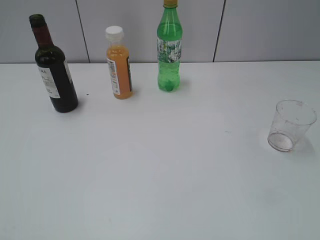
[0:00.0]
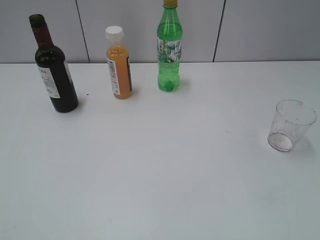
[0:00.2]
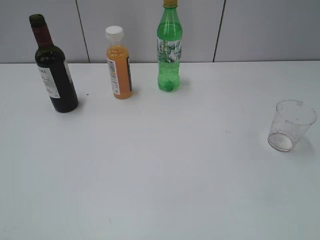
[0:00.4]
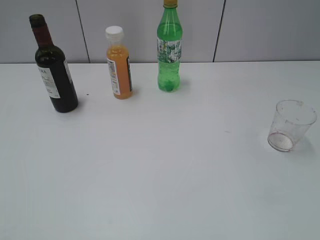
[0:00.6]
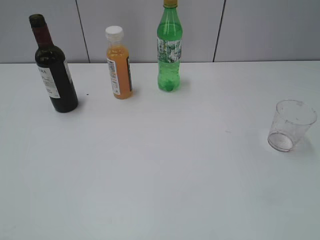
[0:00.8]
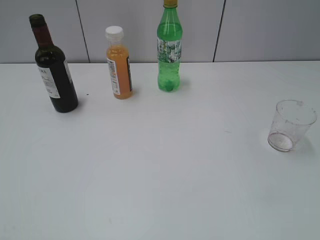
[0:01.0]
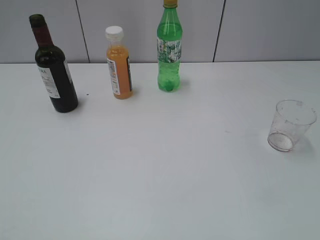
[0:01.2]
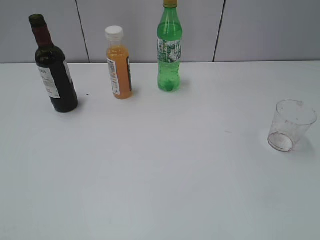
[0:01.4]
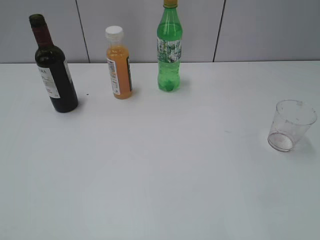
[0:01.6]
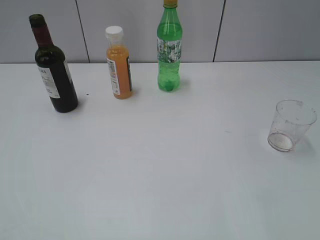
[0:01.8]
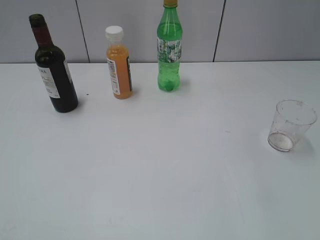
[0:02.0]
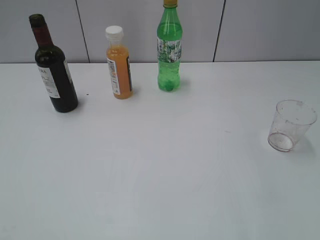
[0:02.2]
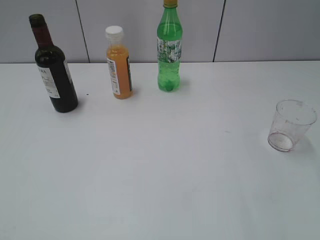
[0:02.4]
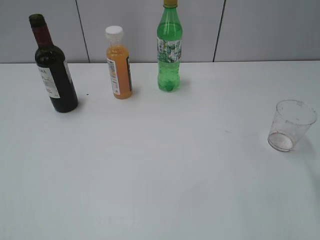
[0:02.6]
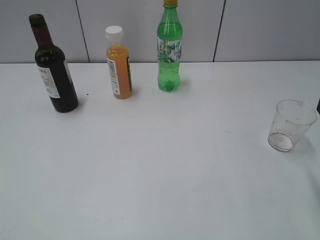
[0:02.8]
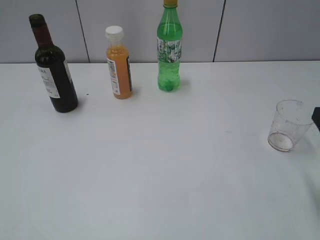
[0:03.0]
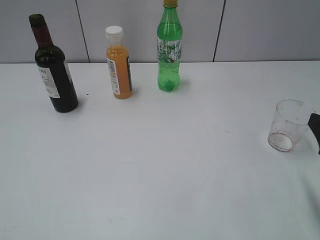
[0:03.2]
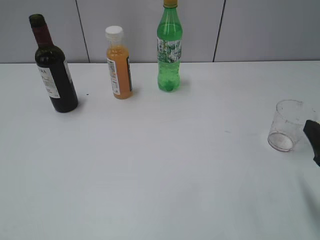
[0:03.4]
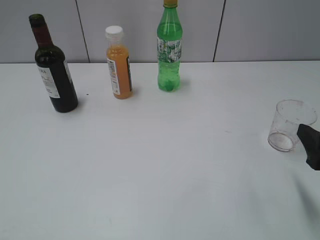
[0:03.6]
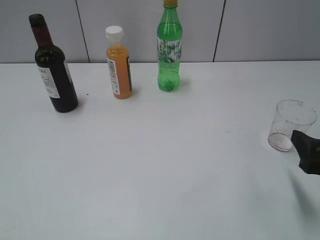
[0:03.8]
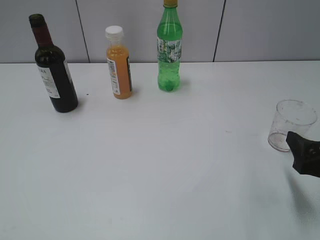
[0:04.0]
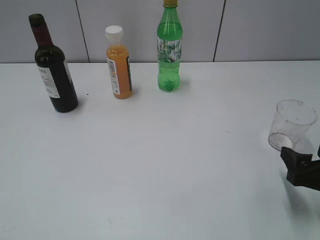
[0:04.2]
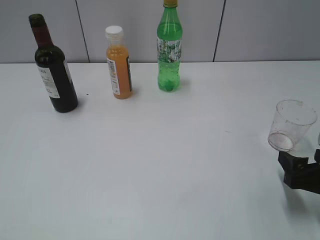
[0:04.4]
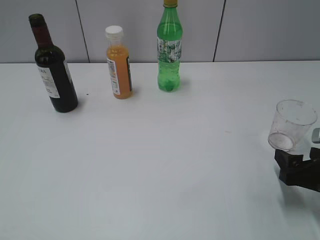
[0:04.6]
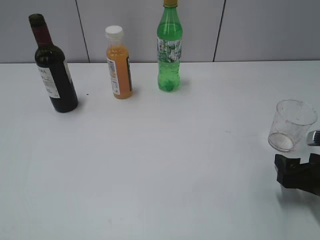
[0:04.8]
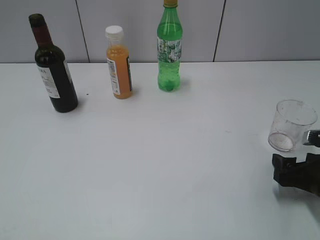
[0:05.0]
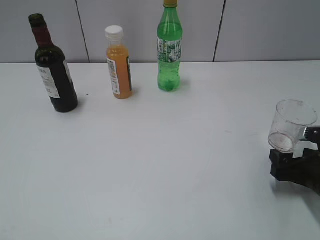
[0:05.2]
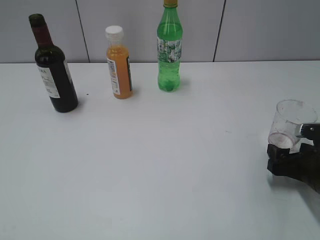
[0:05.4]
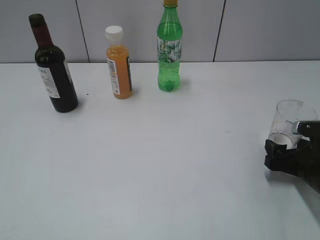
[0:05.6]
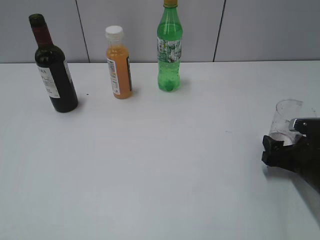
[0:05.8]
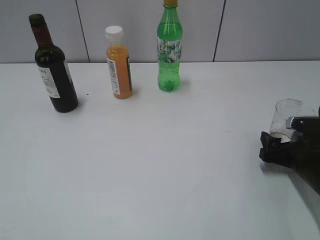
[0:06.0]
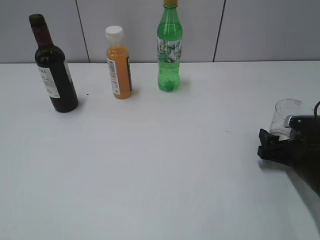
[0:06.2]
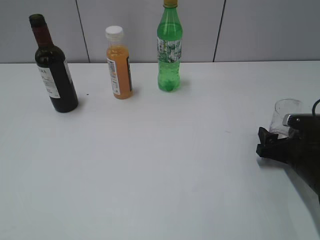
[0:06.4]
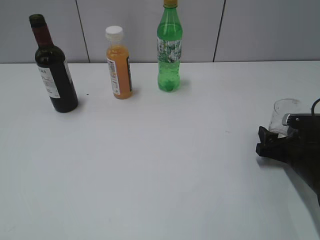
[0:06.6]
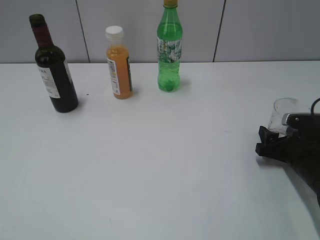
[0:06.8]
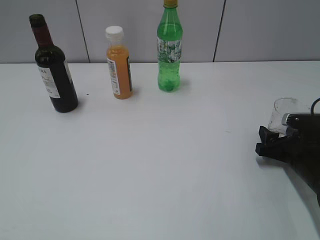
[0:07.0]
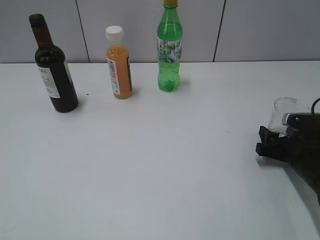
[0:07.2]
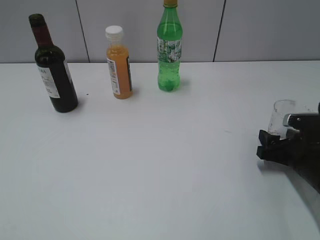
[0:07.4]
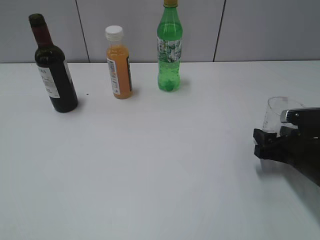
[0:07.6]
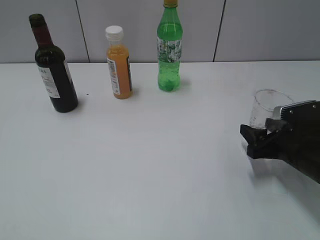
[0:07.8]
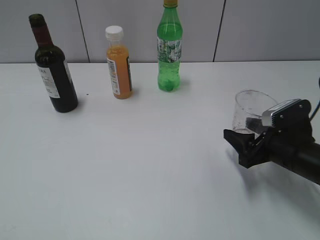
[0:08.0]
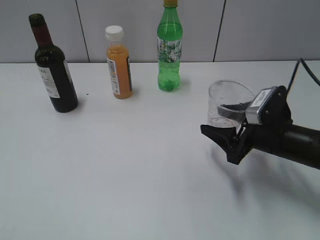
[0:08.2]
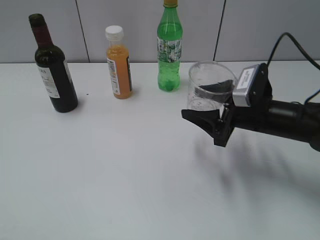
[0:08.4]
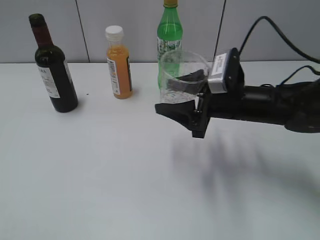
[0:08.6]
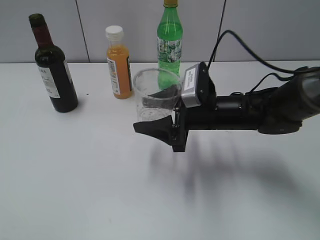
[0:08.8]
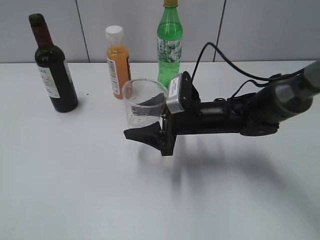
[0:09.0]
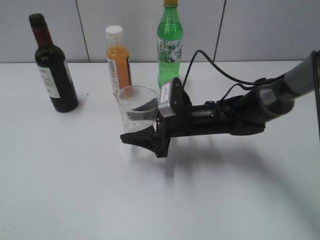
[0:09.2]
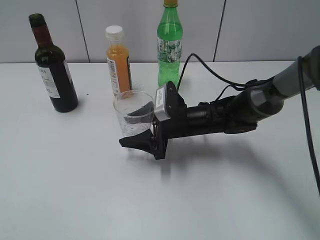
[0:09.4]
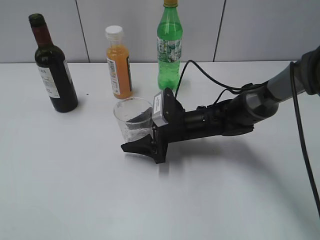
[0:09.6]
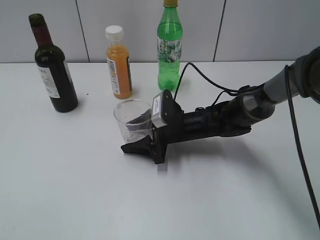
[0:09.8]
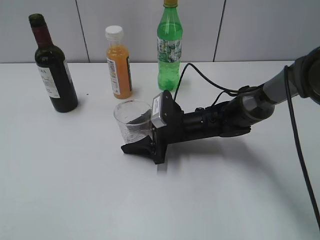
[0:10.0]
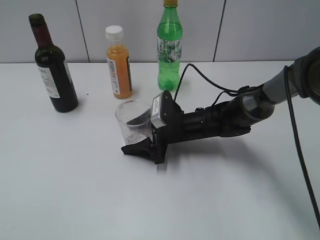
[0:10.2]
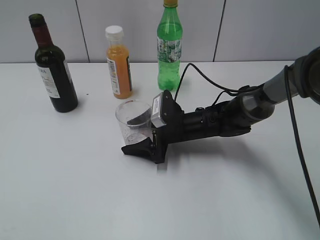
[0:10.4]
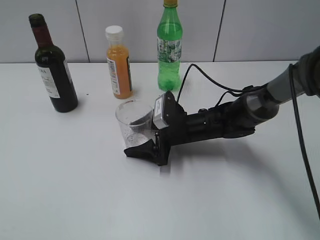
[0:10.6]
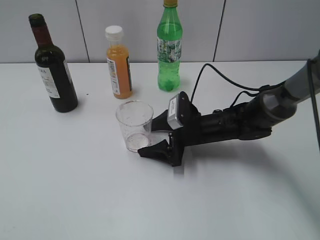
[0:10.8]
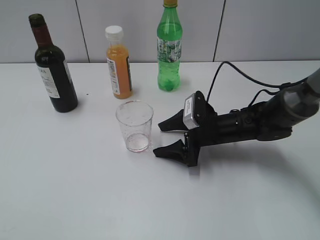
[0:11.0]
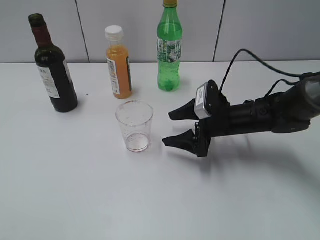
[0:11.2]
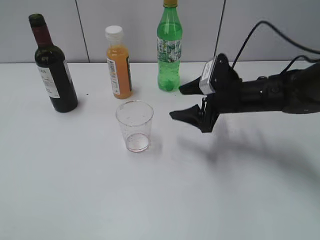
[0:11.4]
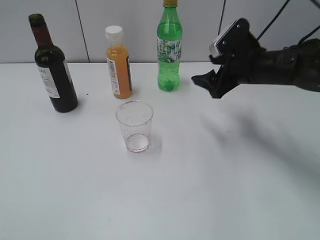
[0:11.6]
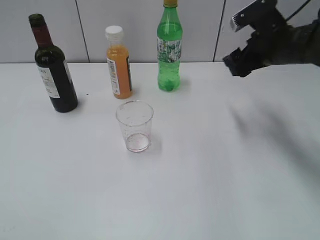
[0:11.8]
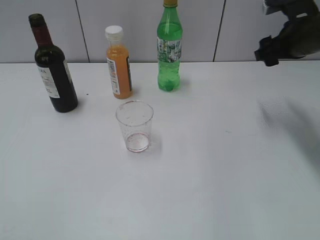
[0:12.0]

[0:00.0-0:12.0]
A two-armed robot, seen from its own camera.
Step, 0:01.0 to 0:07.2: Grasp the transparent cup with right gripper.
Step, 0:07.4 to 0:10.8: Place the transparent cup on the table with right gripper.
0:03.0 to 0:04.4: The right gripper heads downward, covering some 10 cm.
0:04.4 to 0:06.0: The right gripper is displaced forward and downward by approximately 10 cm.
0:06.0 to 0:07.6: The right gripper closes up.
0:07.6 to 0:09.0: The right gripper is displaced to the left by some 20 cm.
0:09.0 to 0:10.4: The right gripper goes approximately 5 cm downward, and opens its fingers.
0:10.4 to 0:12.0: The right gripper moves upward and to the right, roughly 25 cm, and closes.

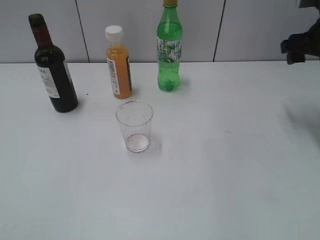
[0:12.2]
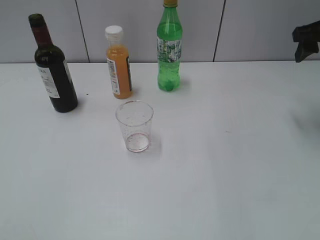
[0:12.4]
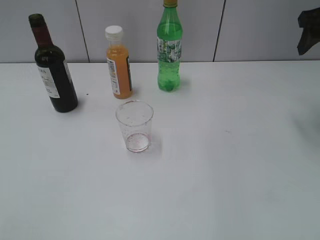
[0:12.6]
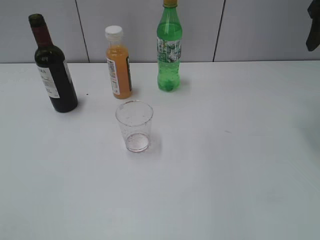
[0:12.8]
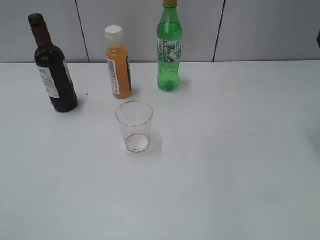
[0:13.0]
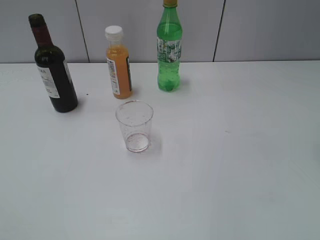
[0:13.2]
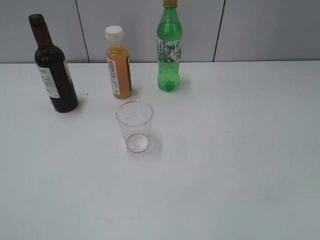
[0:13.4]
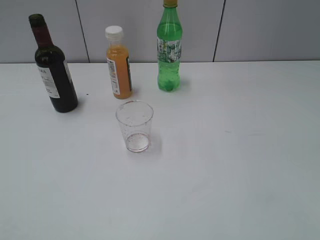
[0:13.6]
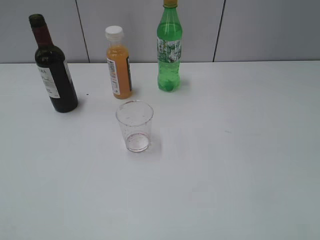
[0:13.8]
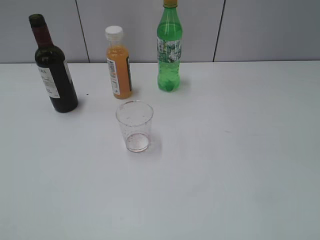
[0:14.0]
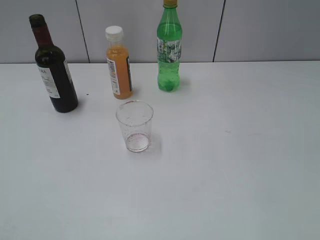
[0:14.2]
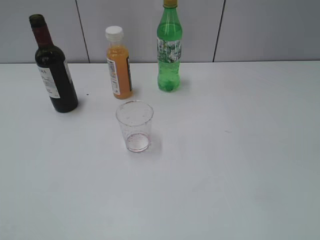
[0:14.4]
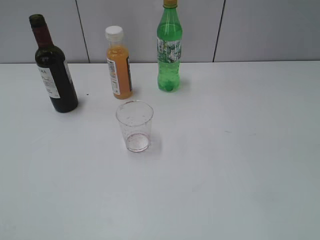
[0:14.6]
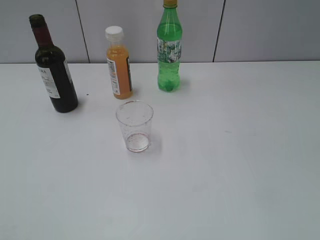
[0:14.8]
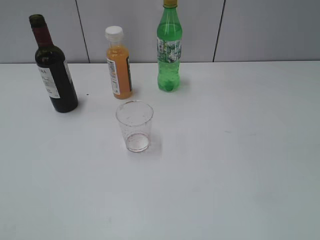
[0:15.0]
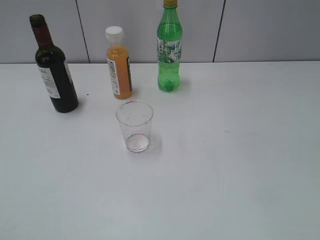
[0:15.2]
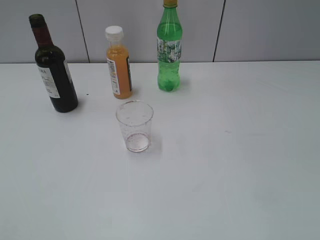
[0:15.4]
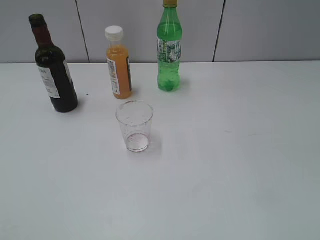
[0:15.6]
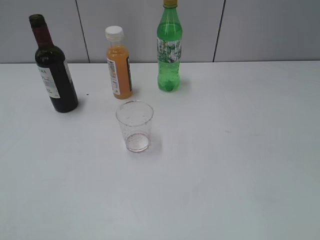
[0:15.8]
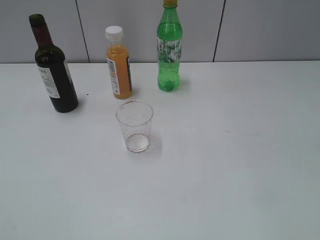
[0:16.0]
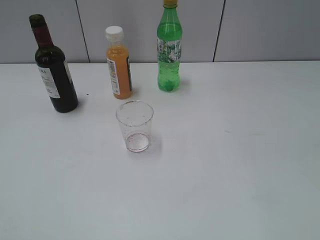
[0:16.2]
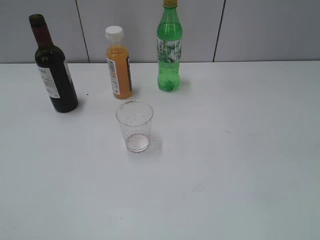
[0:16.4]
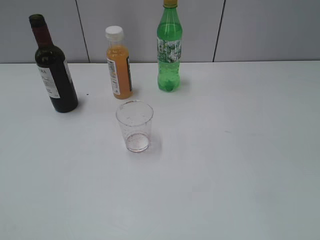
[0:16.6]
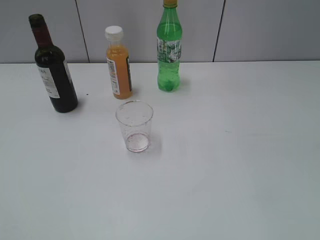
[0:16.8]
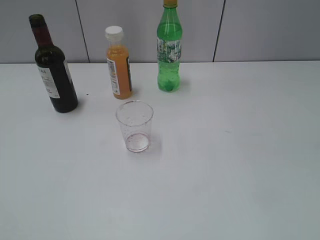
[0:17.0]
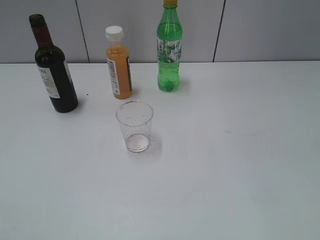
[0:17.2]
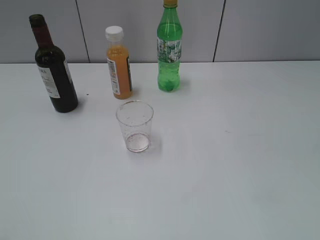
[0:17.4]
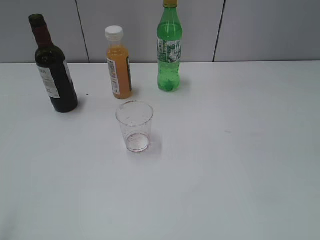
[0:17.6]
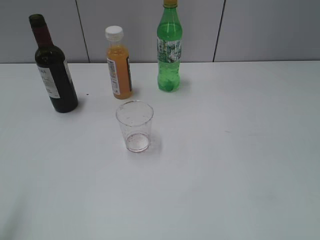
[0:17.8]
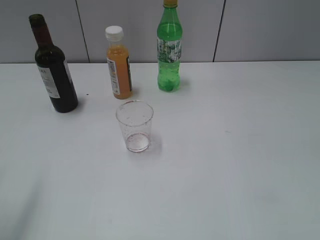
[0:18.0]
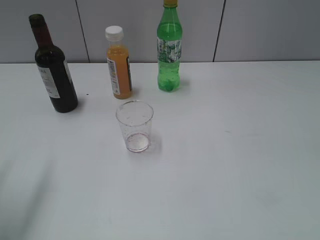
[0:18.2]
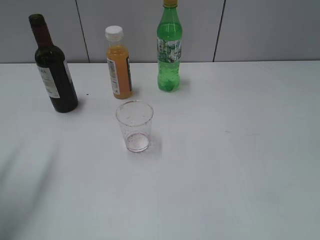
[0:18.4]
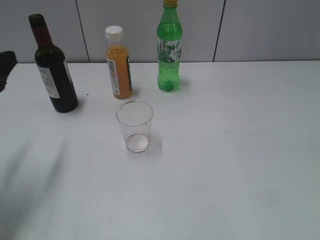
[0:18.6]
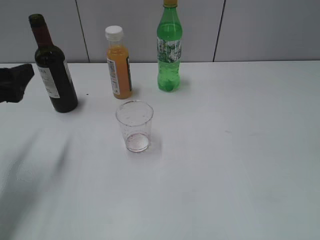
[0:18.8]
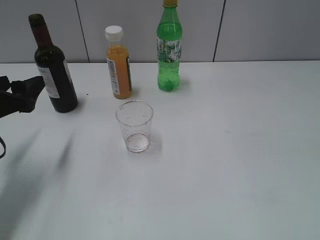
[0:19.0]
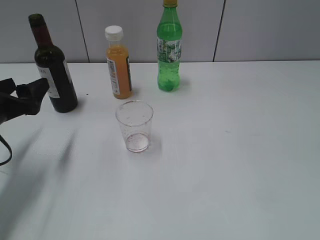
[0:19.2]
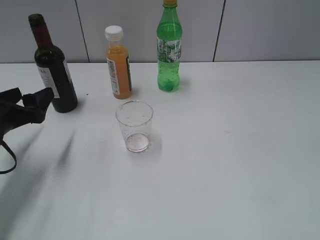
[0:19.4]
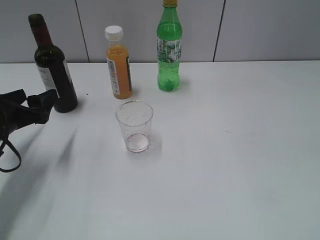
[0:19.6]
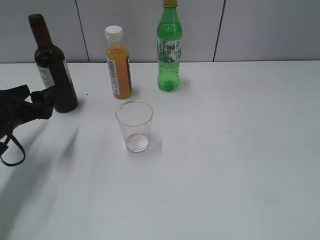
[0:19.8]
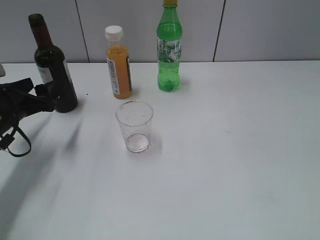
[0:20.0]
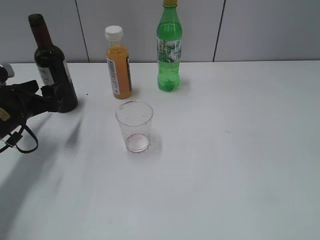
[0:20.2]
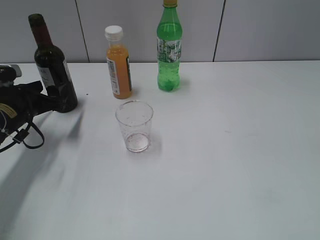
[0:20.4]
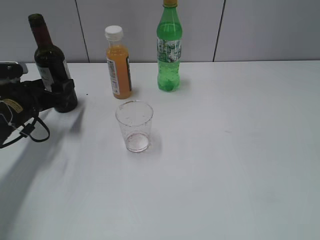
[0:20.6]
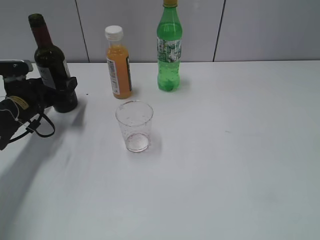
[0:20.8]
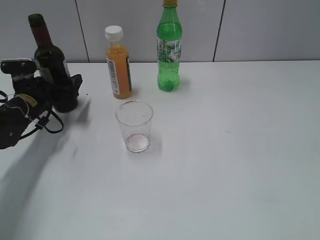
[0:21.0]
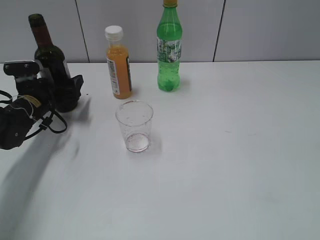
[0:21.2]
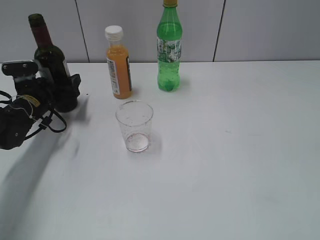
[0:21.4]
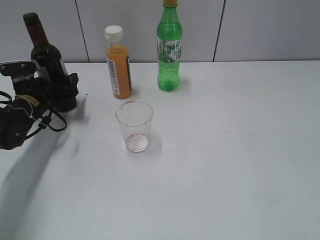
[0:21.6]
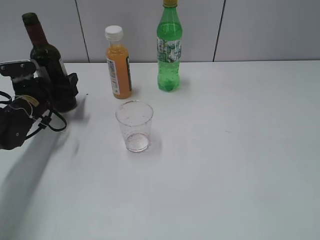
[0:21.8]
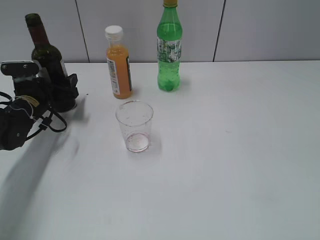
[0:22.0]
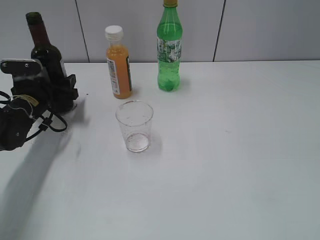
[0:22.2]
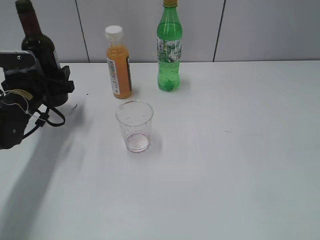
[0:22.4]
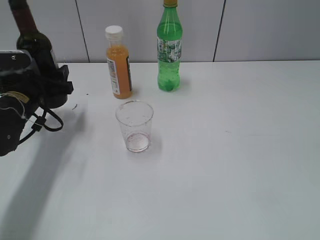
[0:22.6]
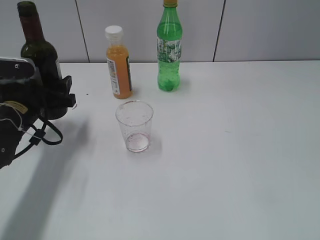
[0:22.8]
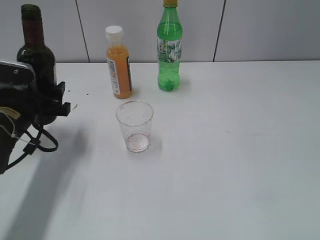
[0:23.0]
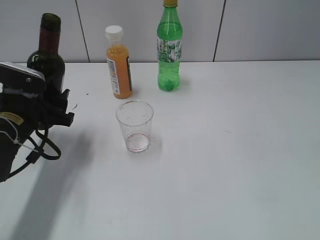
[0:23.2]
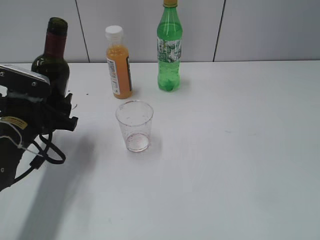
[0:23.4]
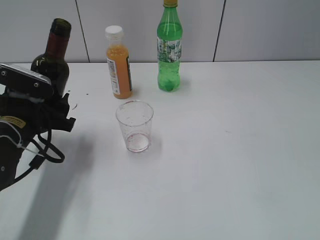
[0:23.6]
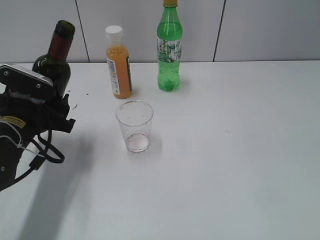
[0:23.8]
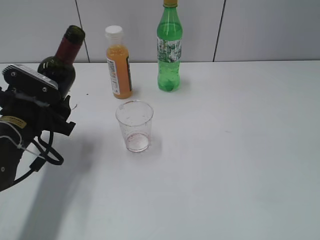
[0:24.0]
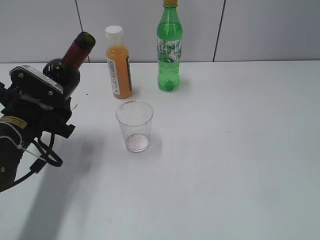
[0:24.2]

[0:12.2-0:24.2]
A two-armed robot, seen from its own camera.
Step, 0:12.2 to 0:21.6: Grasp the bottle with red wine with left gripper.
0:12.2 to 0:13.8: The right gripper is displaced backward by about 25 cm.
0:15.2 to 0:16.6: The two grippers keep their place.
0:16.6 to 0:18.2: The left gripper goes some 20 cm forward, and opens its fingers.
0:18.2 to 0:19.8: The left gripper is displaced downward and forward by roughly 20 cm, and opens up.
0:19.8 to 0:21.2: The left gripper travels forward by roughly 10 cm.
0:21.2 to 0:22.6: The left gripper moves approximately 5 cm, and closes up.
0:22.6 to 0:24.2: The left gripper travels backward by approximately 10 cm.
